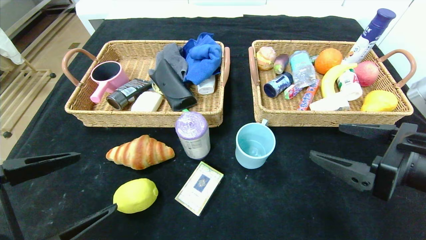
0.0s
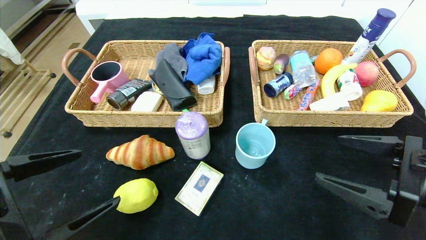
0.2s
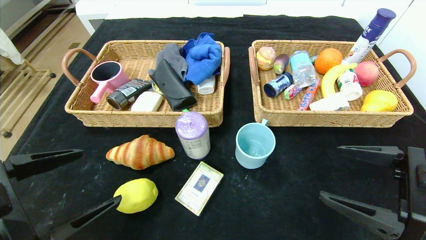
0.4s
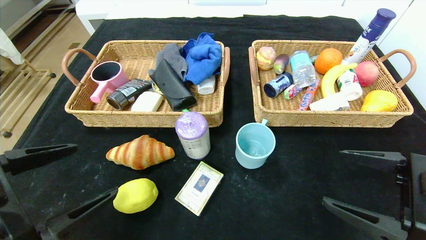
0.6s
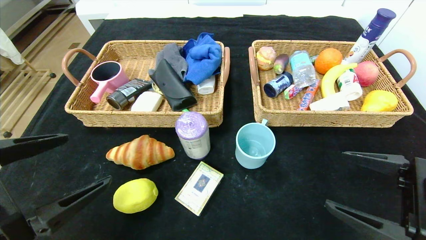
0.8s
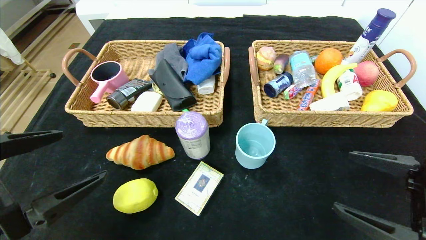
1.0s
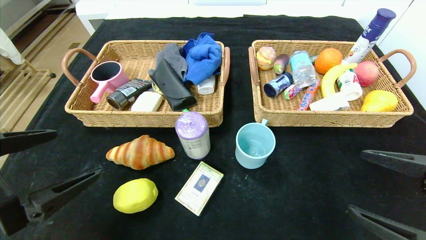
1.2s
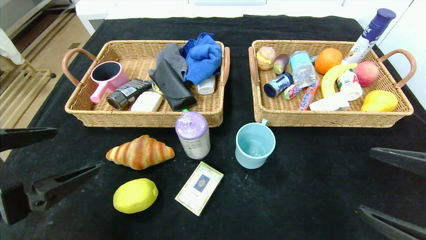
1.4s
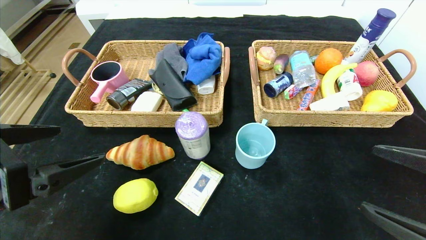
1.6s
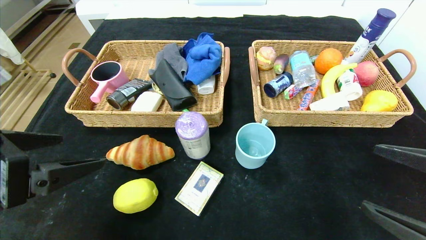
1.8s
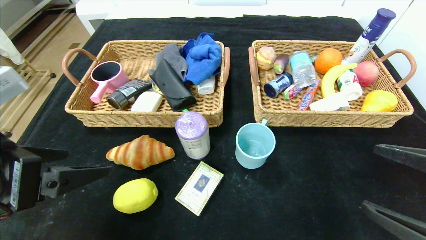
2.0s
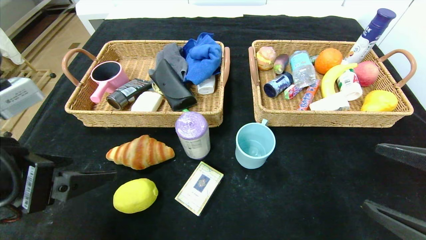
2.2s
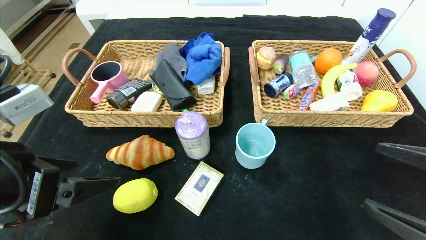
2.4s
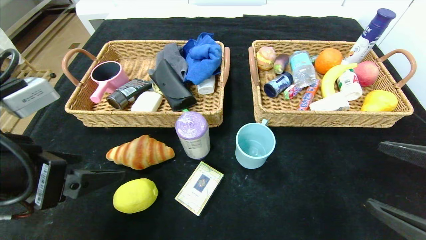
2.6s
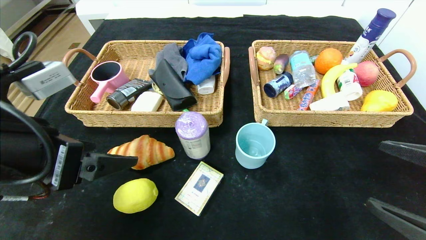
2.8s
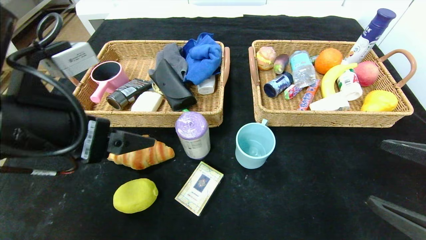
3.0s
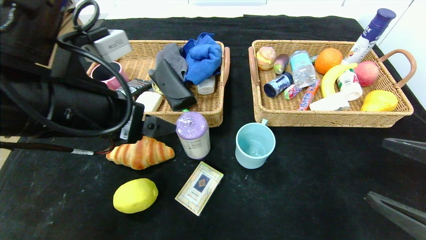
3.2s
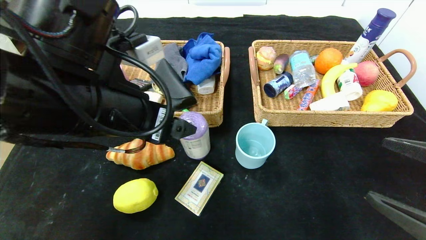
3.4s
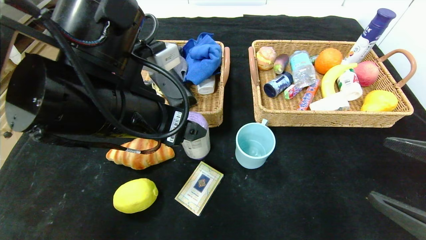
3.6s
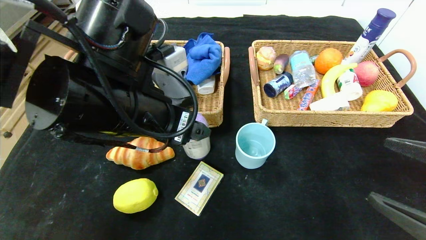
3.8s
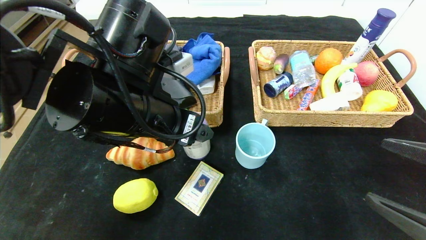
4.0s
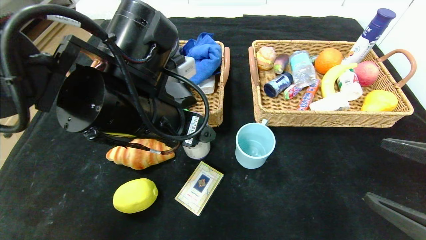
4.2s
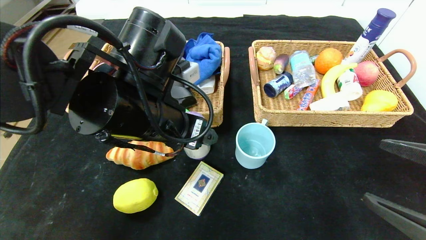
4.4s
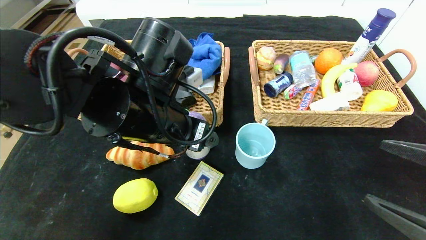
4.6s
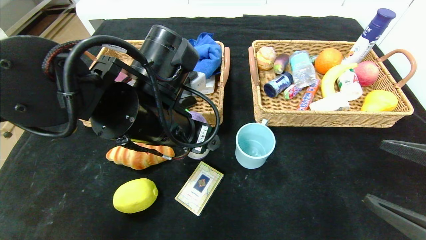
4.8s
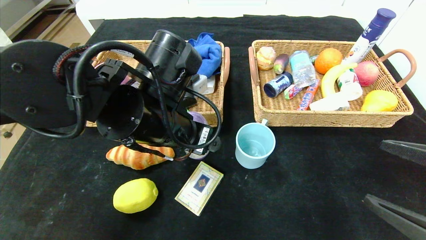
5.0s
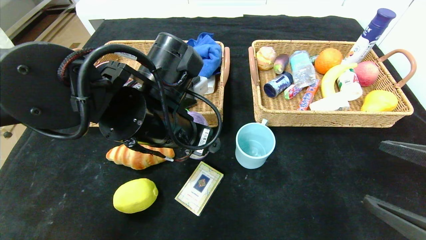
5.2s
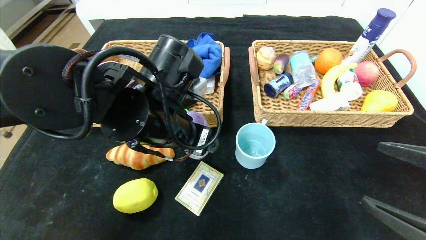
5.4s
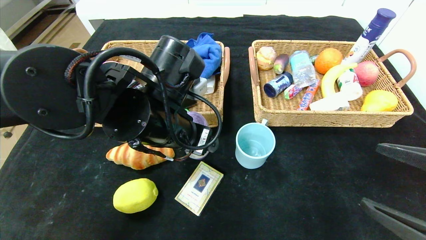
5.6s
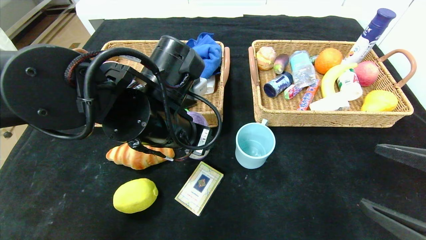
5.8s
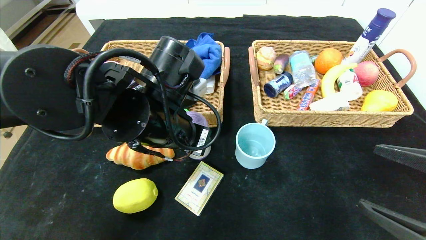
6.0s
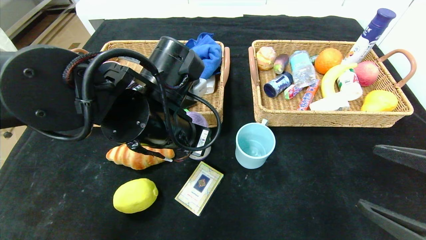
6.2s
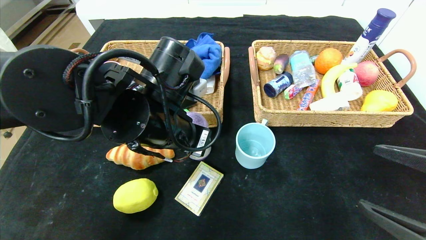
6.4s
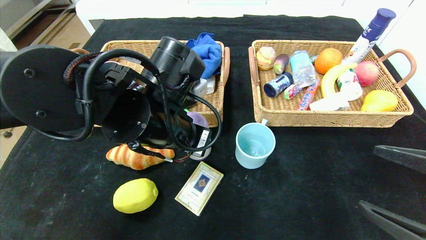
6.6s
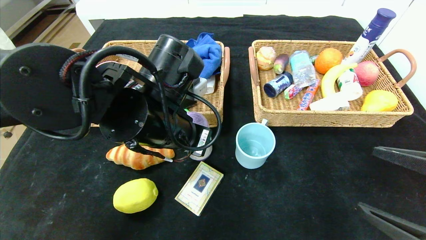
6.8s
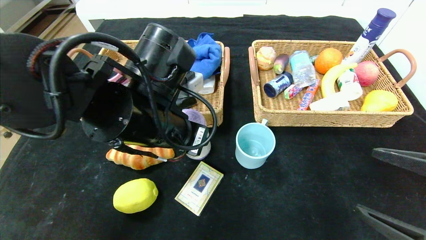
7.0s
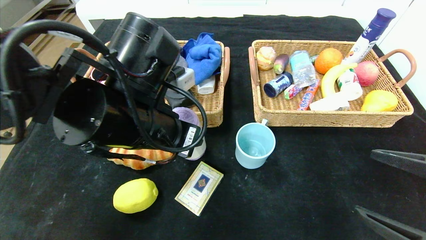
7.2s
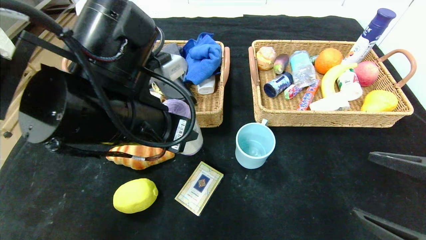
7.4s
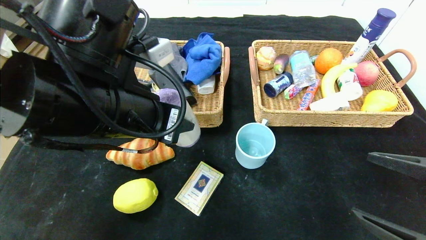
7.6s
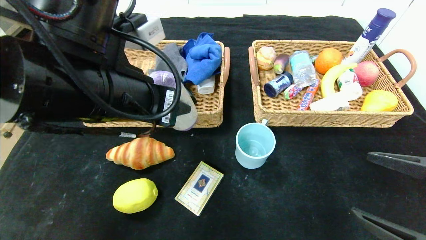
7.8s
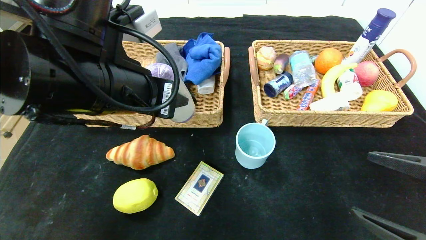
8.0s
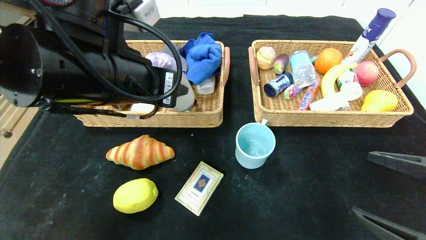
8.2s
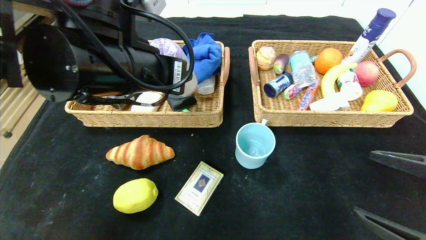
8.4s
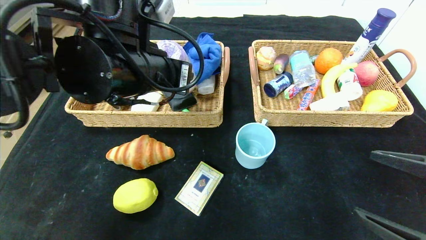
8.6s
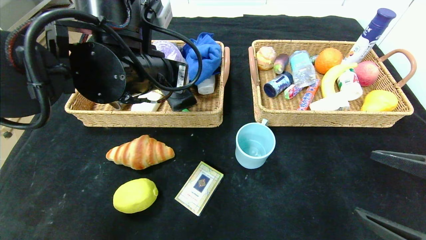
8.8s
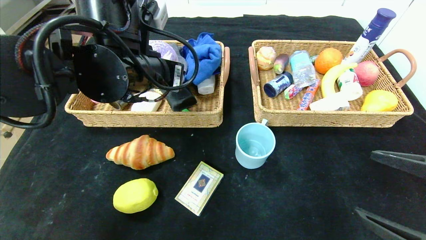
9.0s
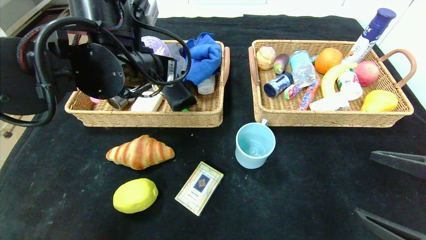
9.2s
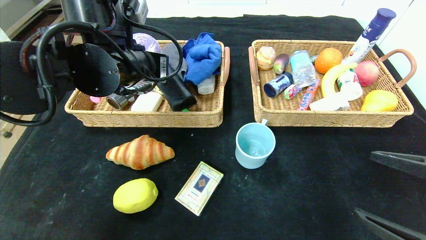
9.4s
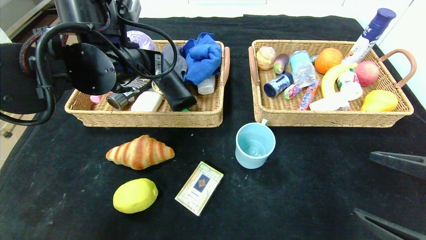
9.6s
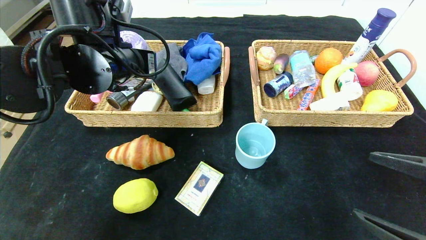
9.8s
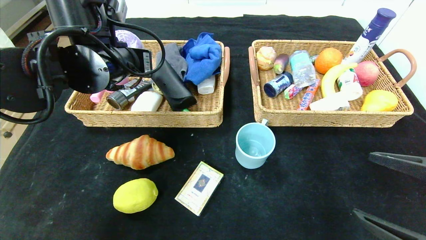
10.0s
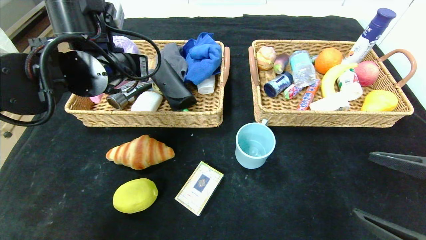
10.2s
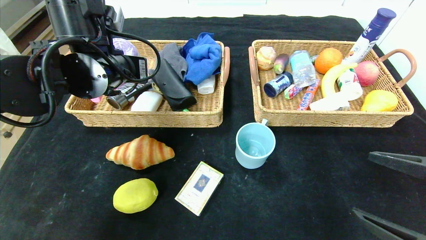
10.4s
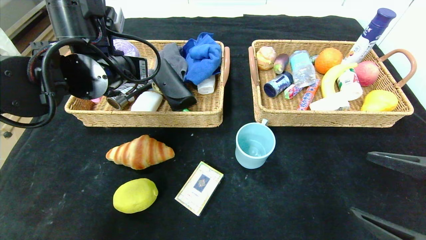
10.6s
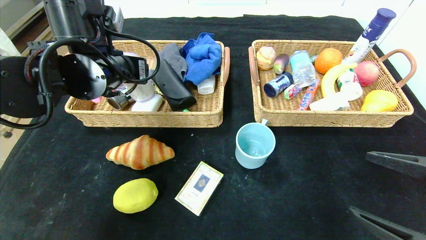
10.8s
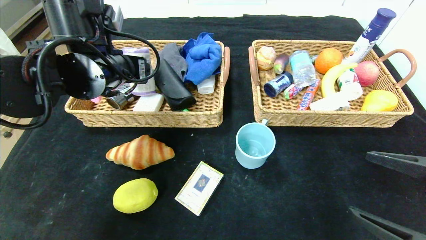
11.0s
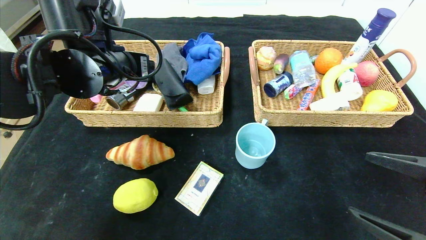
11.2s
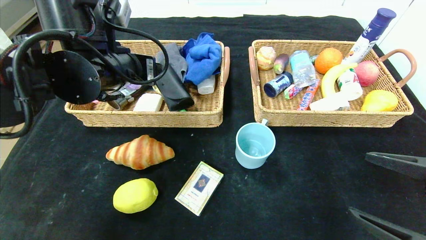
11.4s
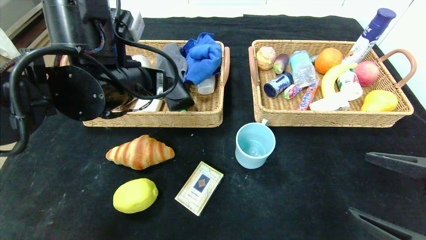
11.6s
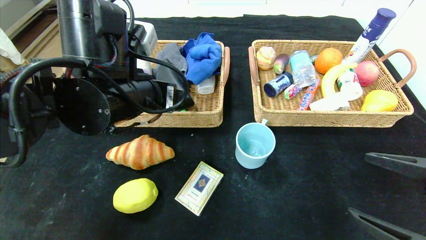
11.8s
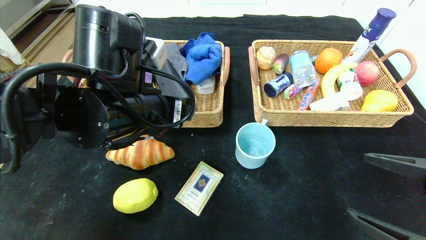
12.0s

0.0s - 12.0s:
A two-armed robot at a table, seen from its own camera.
Step, 0.0s - 11.0s: Grasp the purple garbage bag and put it in the left basket.
0.0s - 1.6s: The left gripper heads upward, covering about 5 cm; the right gripper heads backward, covering approximately 5 cm.
1.6s - 3.0s: The left gripper shifts roughly 10 cm forward and to the right.
3.0s - 4.4s: The left gripper heads to the right and forward, covering approximately 10 cm.
4.4s - 6.0s: The left gripper closes.
6.0s - 7.6s: The left gripper changes place by about 10 cm.
7.6s - 9.0s: The left gripper shifts approximately 5 cm forward.
9.0s - 10.4s: The left gripper goes about 5 cm to the left.
10.4s - 12.0s: The left gripper is displaced backward and to the right by roughly 10 cm, and opens its fingers.

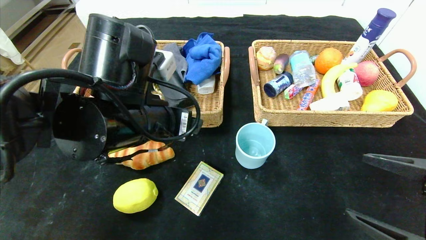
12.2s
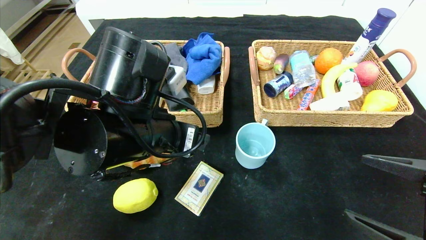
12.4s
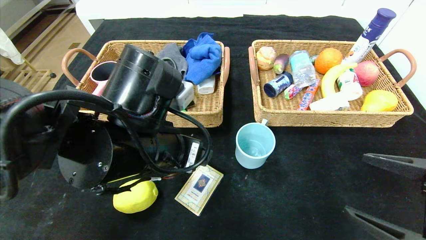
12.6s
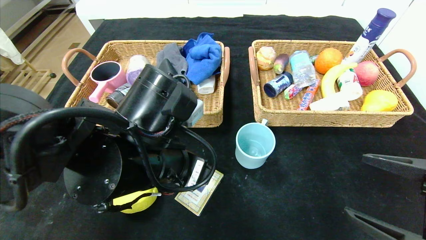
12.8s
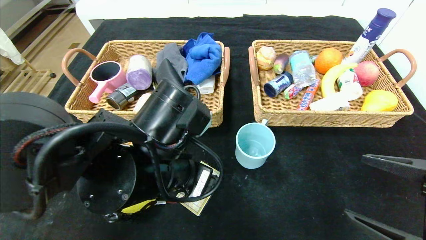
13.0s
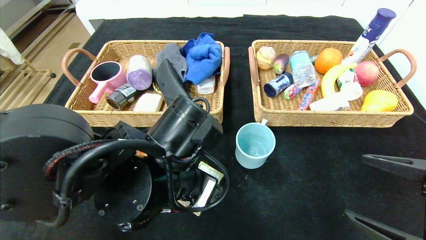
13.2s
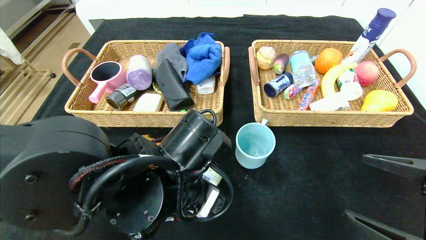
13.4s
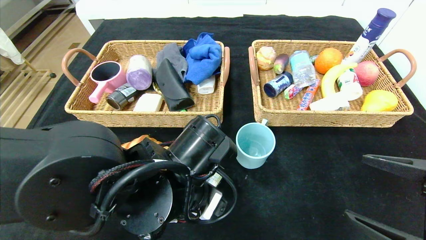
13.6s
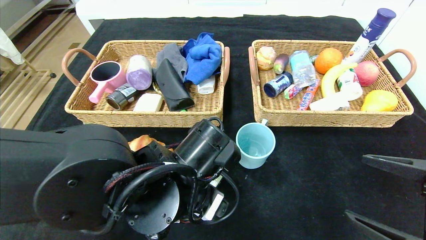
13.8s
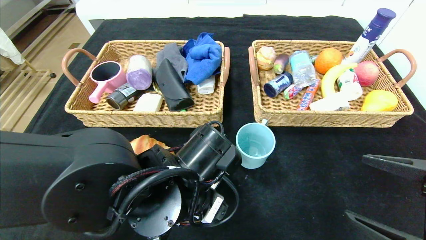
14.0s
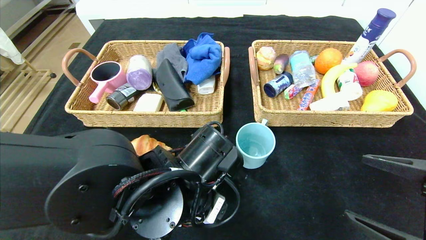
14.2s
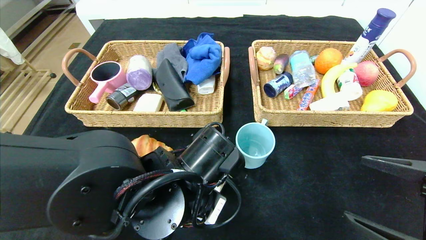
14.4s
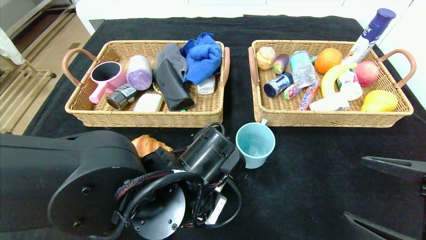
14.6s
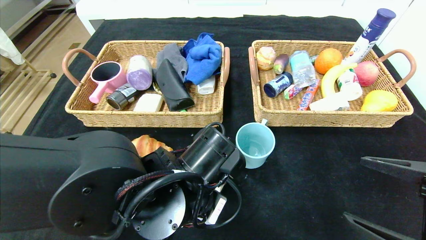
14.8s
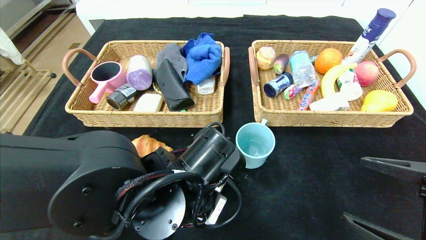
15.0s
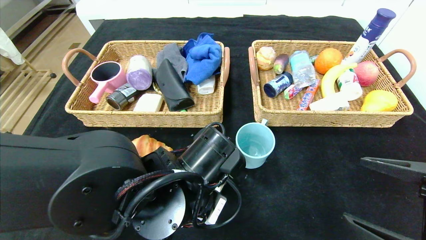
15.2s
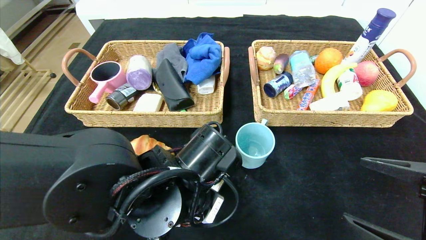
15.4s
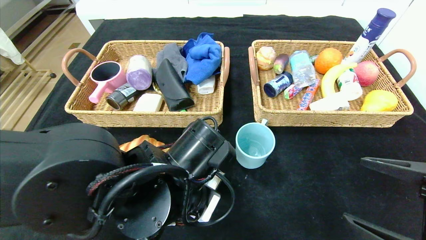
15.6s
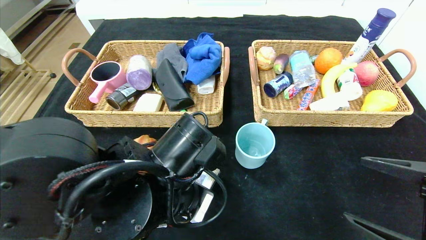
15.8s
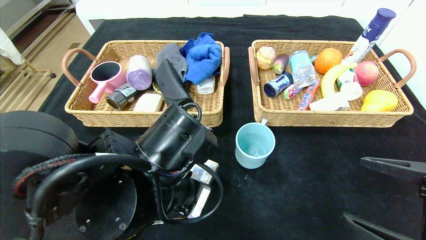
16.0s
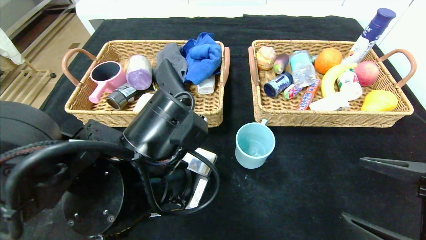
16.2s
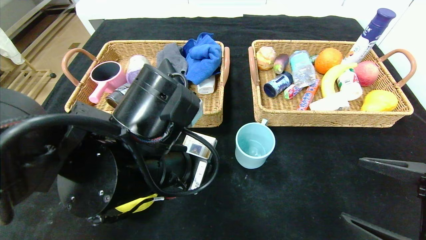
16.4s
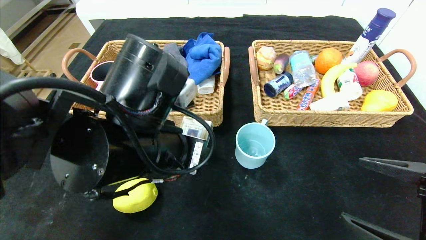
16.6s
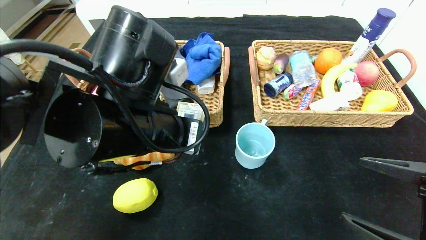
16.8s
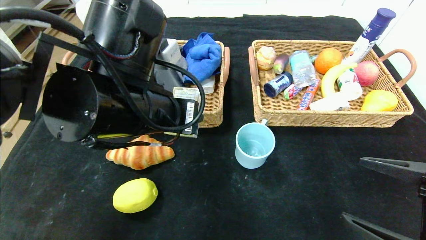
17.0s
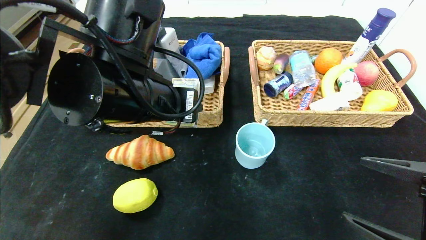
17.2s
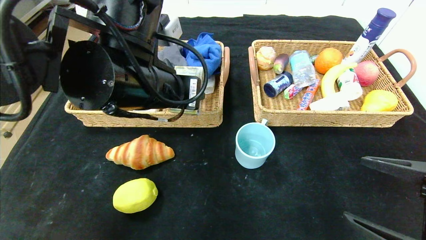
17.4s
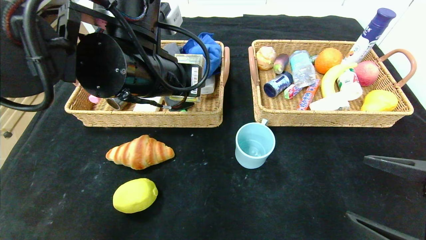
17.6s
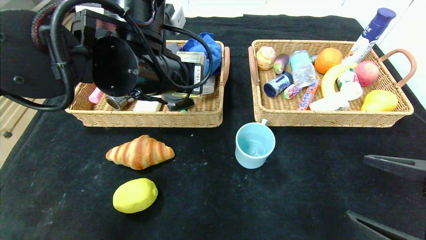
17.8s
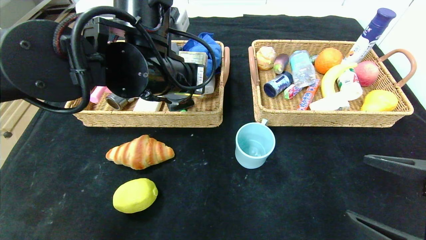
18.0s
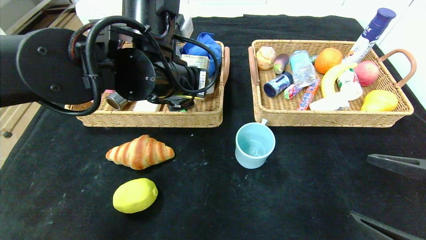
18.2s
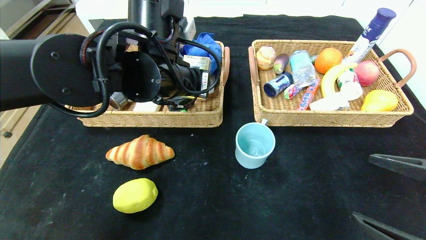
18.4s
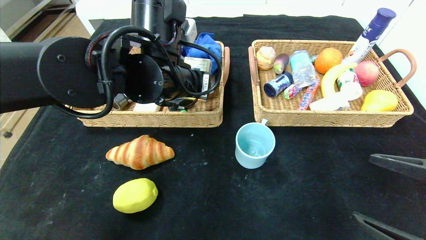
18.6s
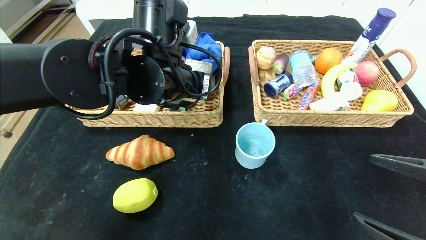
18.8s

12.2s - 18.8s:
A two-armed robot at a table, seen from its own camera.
12.2s - 13.8s: The left gripper shifts about 10 cm downward and to the right.
13.8s - 15.4s: The left gripper closes.
15.4s - 17.2s: The left gripper goes some 10 cm upward.
17.2s - 18.8s: The left gripper heads forward, covering some 5 cm.
